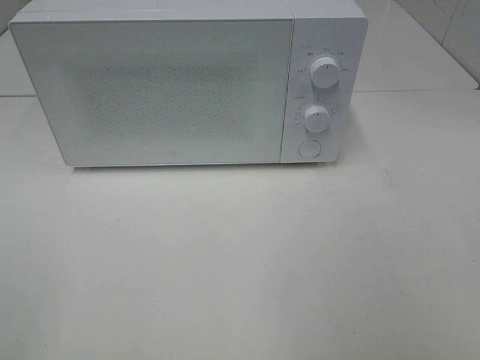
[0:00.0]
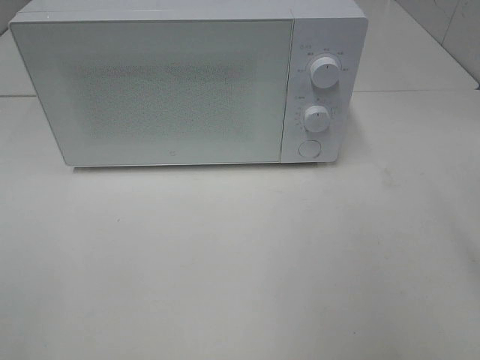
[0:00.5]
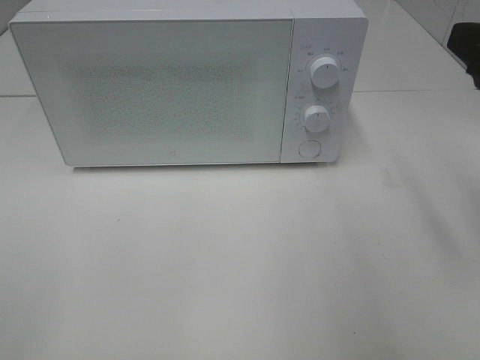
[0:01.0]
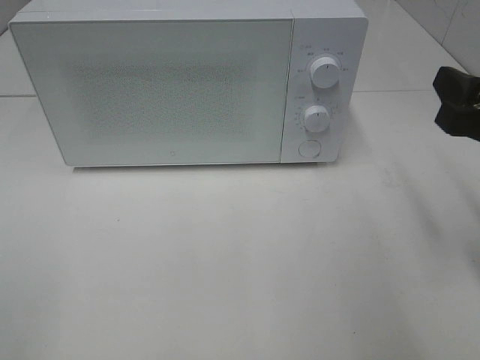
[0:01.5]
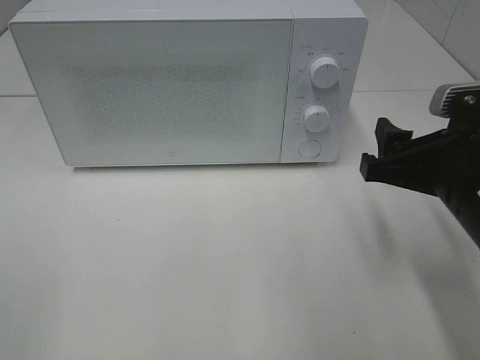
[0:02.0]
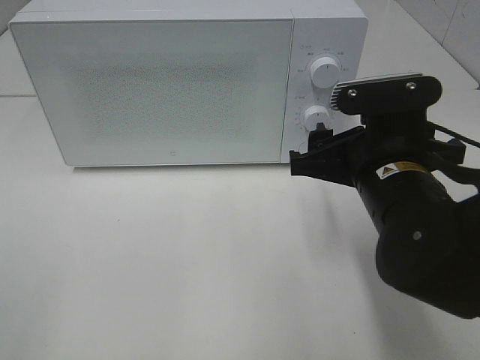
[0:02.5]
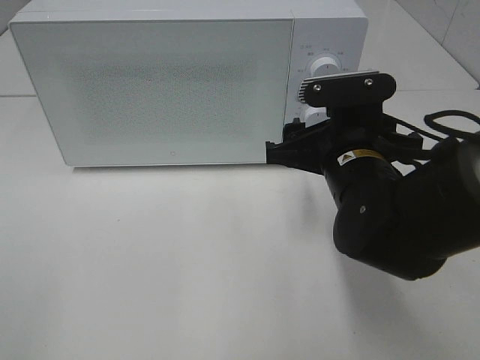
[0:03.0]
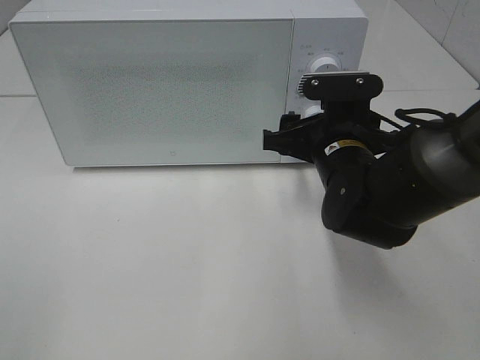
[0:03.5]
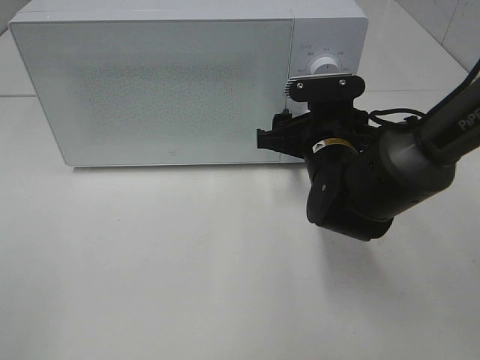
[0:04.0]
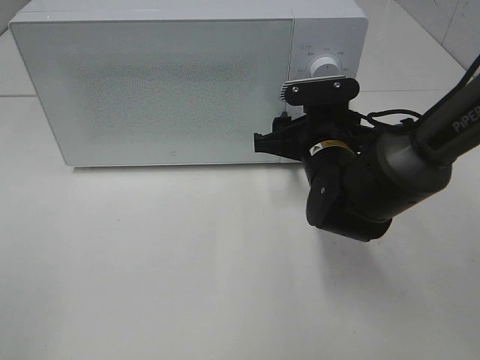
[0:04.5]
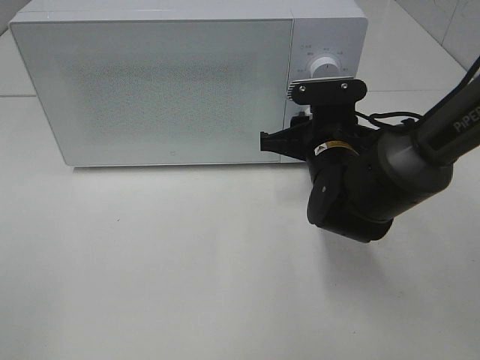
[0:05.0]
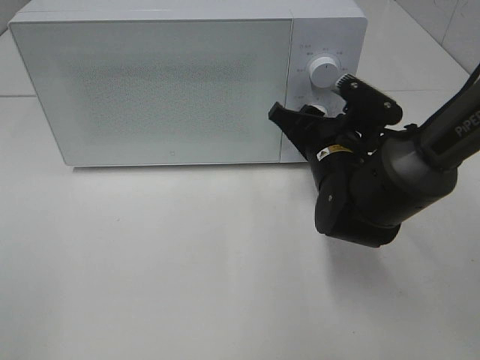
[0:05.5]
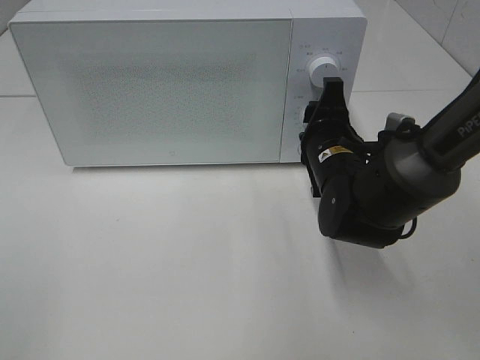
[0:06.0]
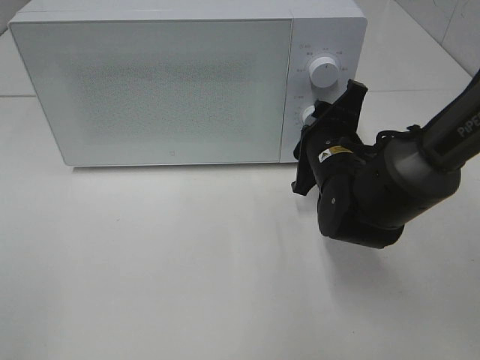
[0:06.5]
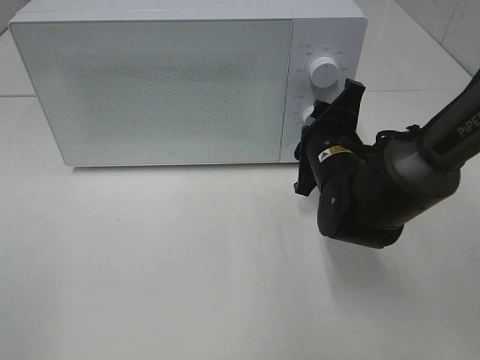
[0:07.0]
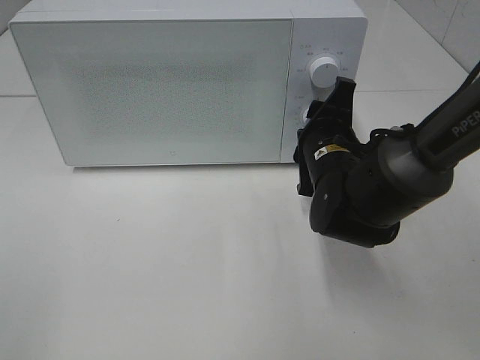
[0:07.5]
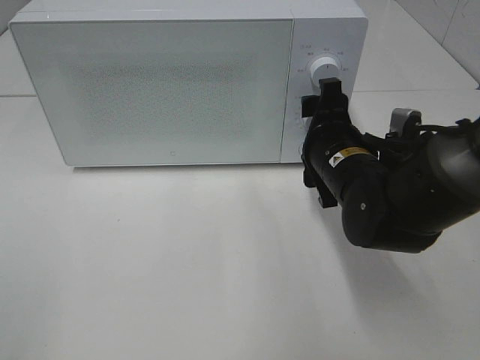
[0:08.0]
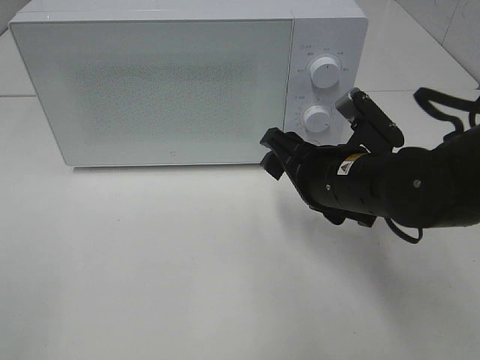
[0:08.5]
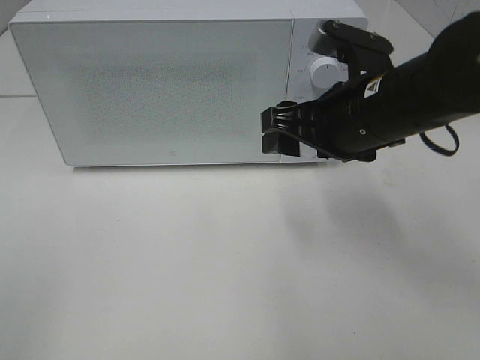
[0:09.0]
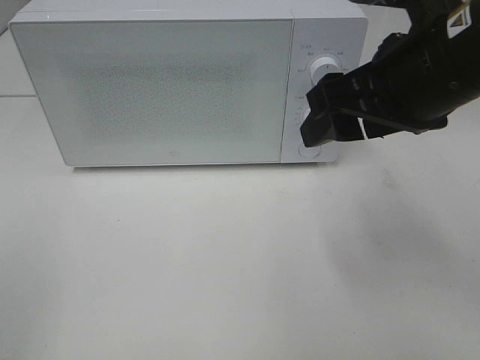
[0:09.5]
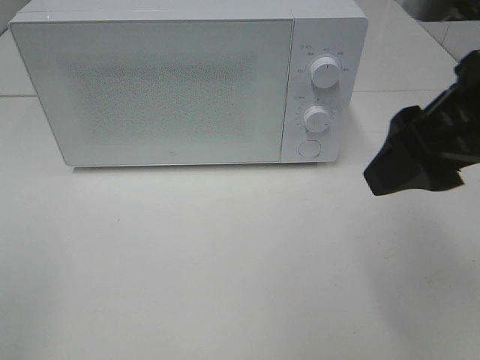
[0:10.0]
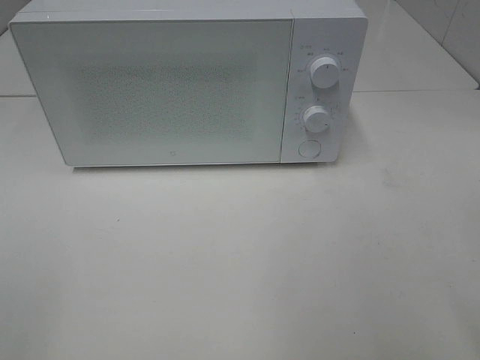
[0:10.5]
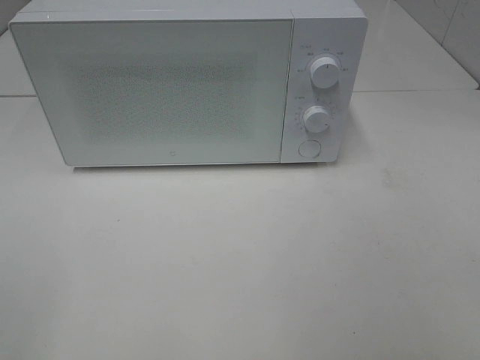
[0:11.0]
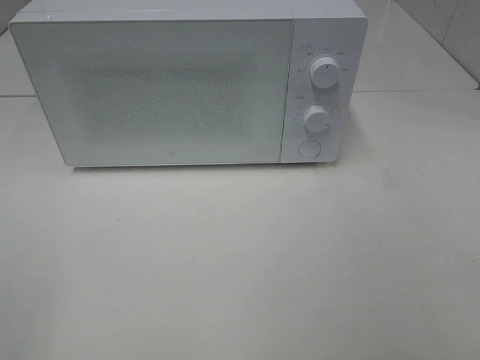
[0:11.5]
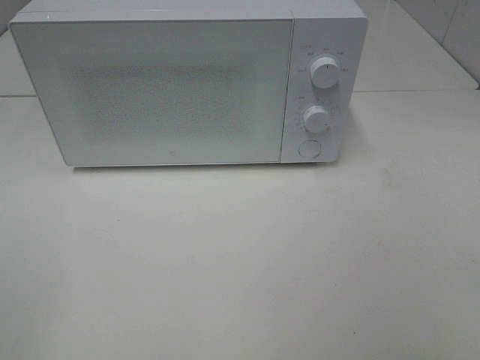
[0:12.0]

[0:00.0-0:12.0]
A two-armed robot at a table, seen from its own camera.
Task of the whole recording: Heat the burger.
Step, 0:00.0 to 0:07.5: Right hand: twist timer button.
0:00.0 to 0:02.0: The right gripper shifts approximately 20 cm downward, forward and to the left.
0:02.0 to 0:04.0: The right gripper shifts roughly 15 cm forward, to the left and downward.
0:04.0 to 0:06.0: The right gripper closes.
0:06.0 to 0:08.0: The right gripper opens up.
0:08.0 to 0:10.0: The right gripper travels upward and backward by roughly 25 cm.
0:10.0 to 0:12.0: The right gripper travels backward and to the right by some 20 cm.

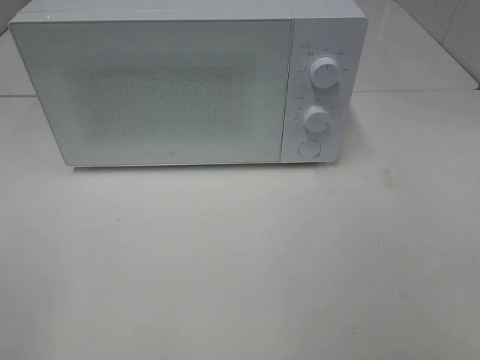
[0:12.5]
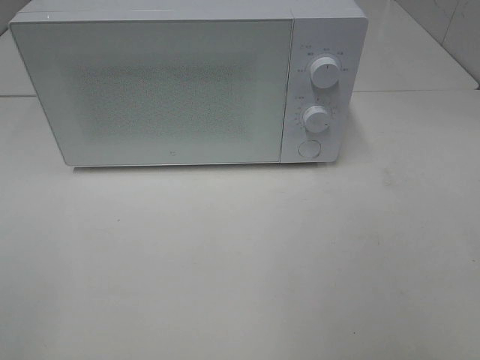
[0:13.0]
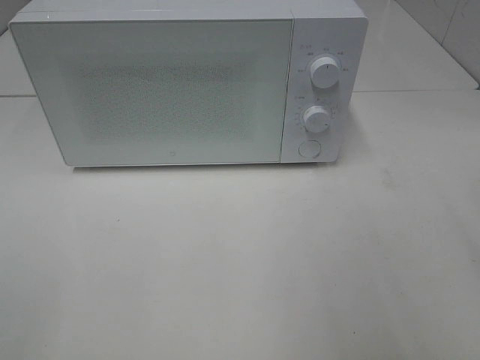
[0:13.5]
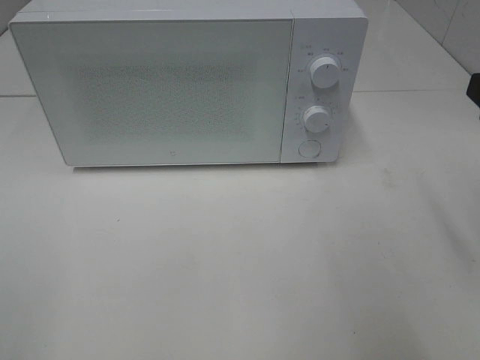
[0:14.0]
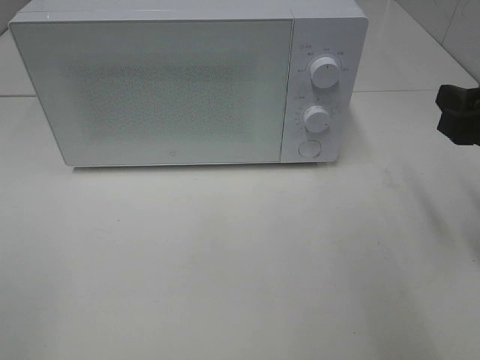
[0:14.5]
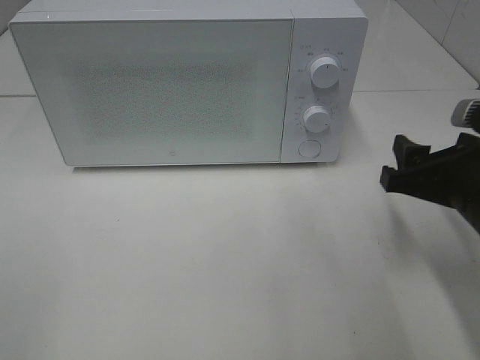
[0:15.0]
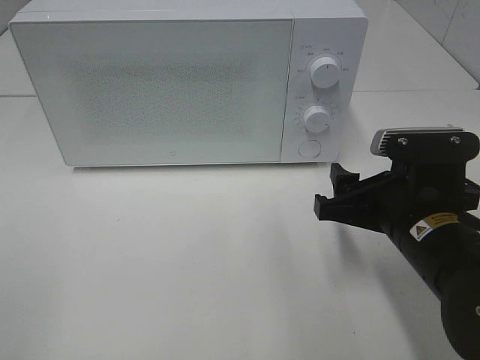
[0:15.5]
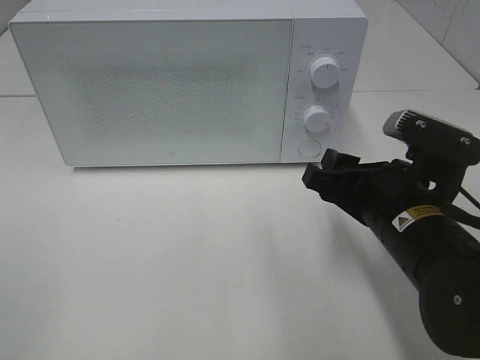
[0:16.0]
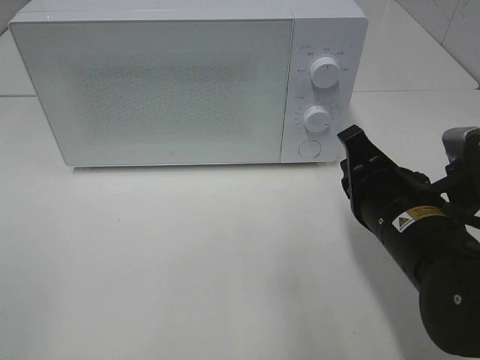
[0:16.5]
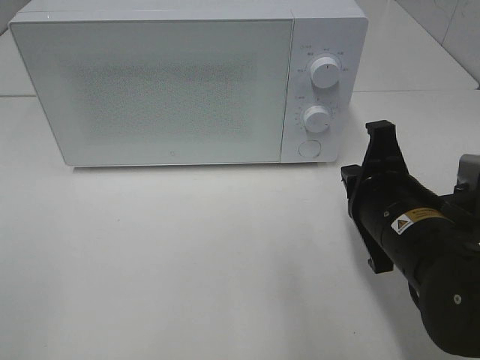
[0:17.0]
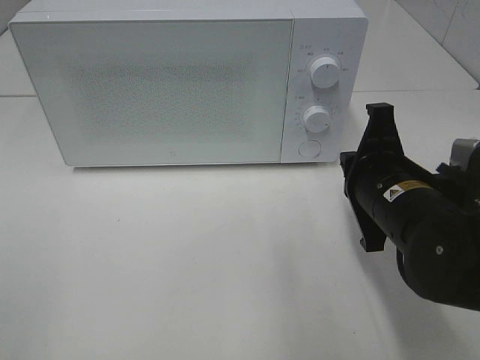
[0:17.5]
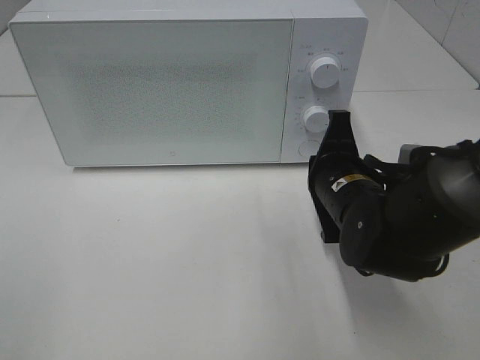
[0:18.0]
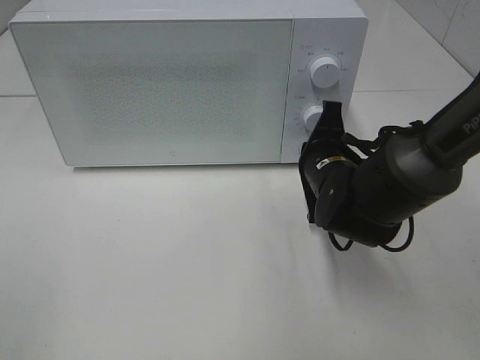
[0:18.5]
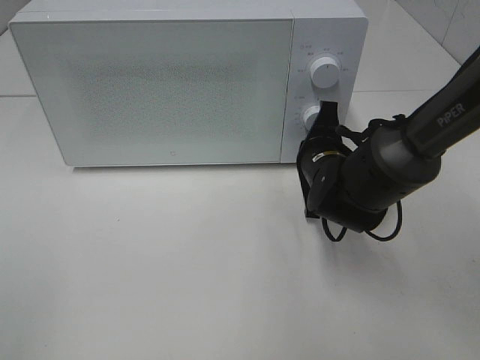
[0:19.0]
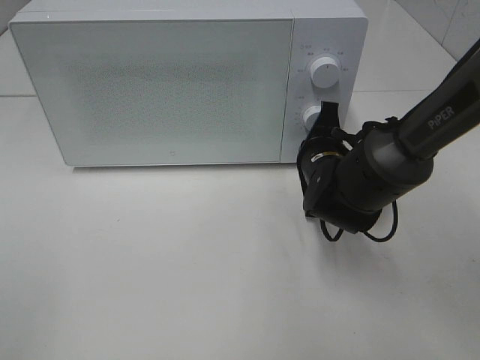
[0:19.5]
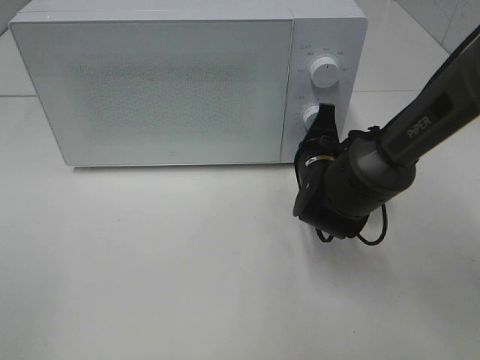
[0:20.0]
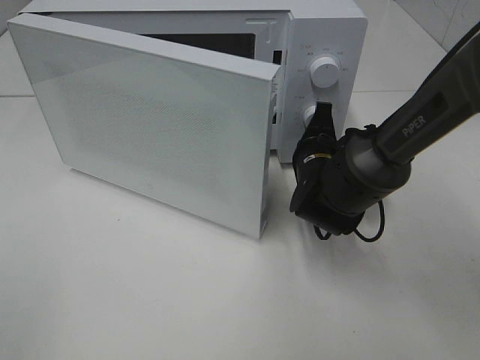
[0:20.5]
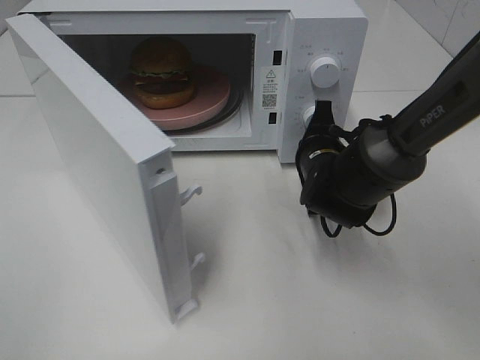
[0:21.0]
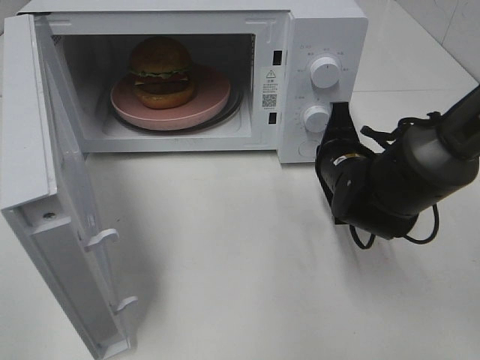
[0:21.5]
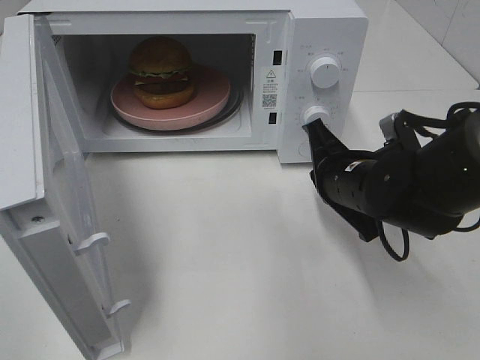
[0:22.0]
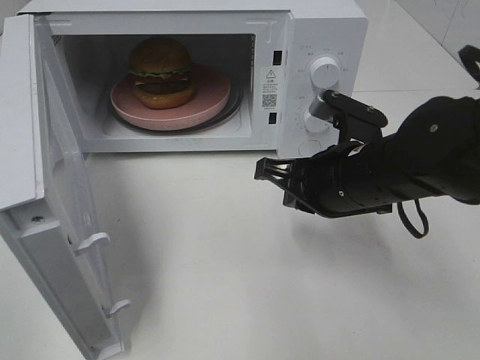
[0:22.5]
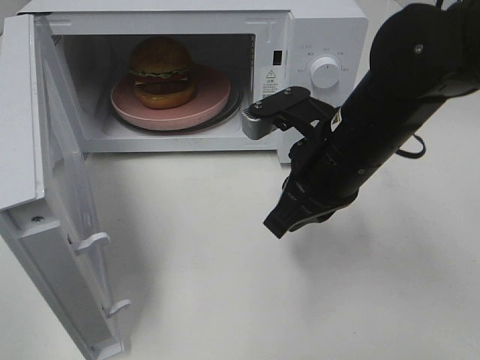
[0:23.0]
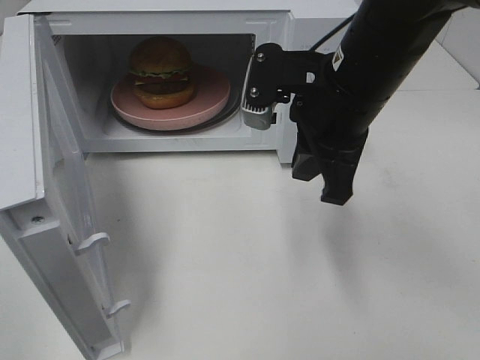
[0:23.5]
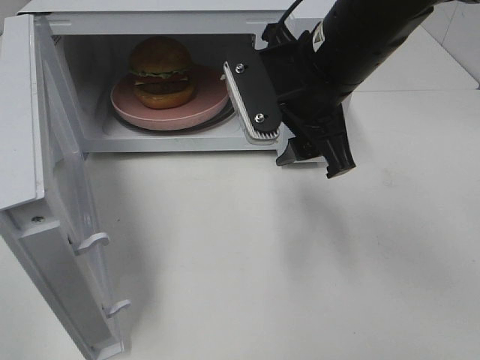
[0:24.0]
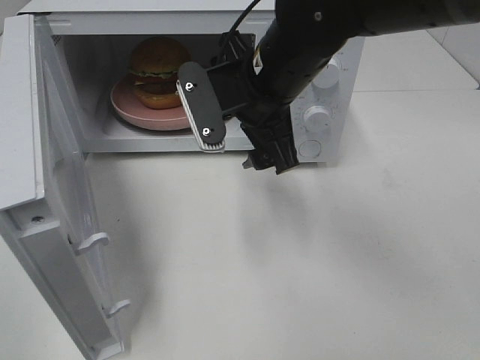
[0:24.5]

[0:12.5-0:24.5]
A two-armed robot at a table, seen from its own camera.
Task of the whole recording: Heat the burger.
Step, 0:12.5 to 0:21.0: Right hand: press the switch.
0:12.5 to 0:14.5: The right gripper heads forward and downward, covering some 25 cm.
0:14.5 to 0:16.5: The right gripper travels to the left and downward by some 15 cm, and closes.
0:16.5 to 0:18.5: The right gripper heads forward, covering roughly 10 cm.
0:20.5 to 0:22.5: The right gripper goes some 10 cm backward and upward.
0:22.5 to 0:24.5: The right gripper shifts about 15 cm to the left, upward and forward, and opens its fingers.

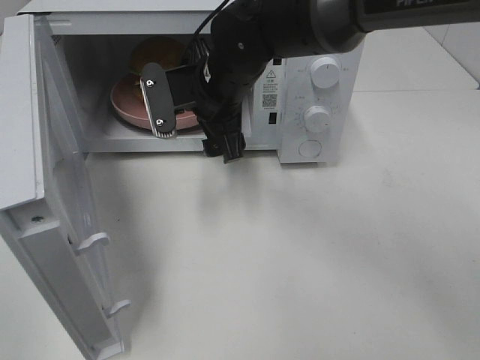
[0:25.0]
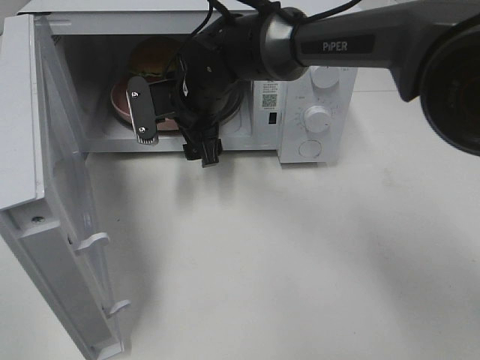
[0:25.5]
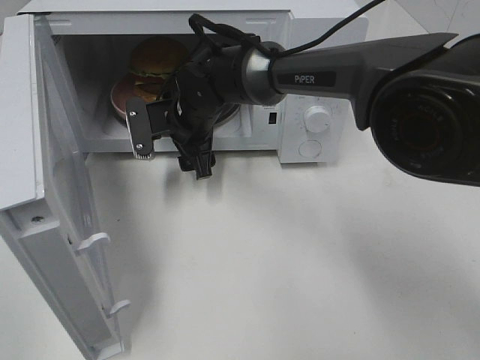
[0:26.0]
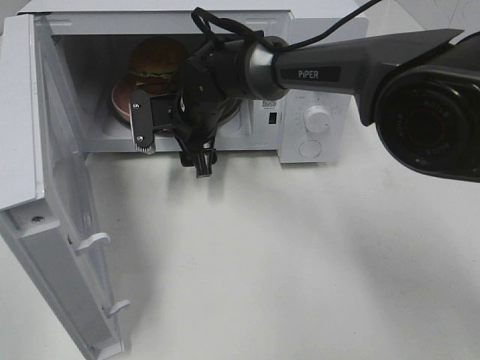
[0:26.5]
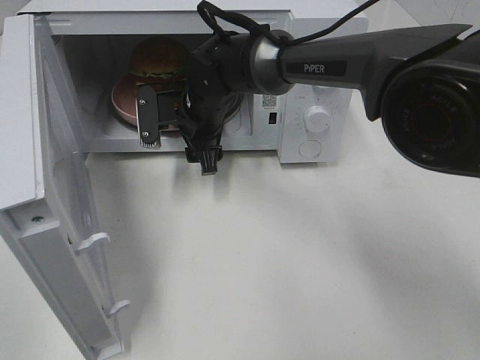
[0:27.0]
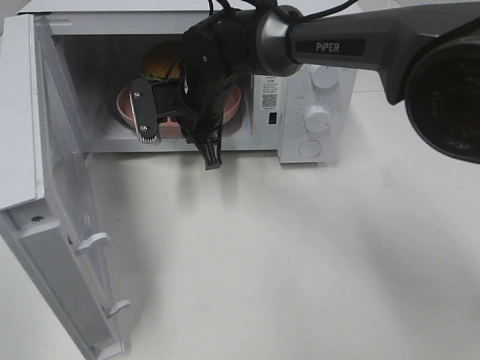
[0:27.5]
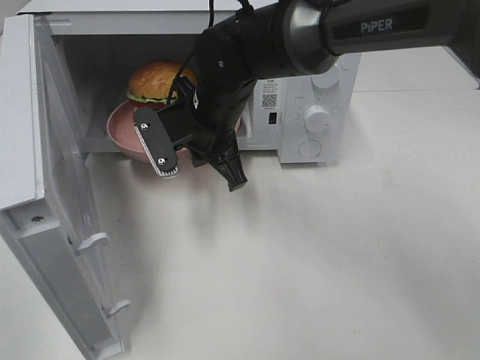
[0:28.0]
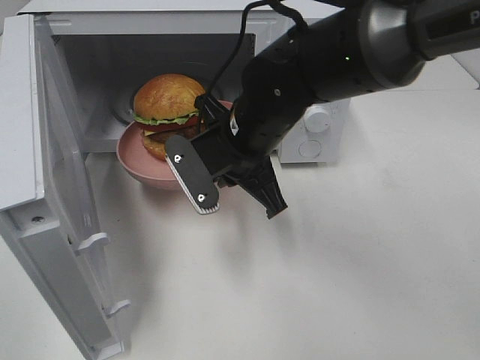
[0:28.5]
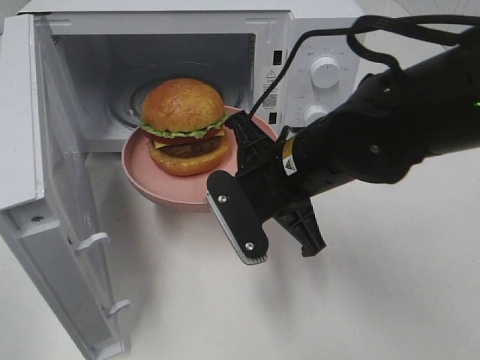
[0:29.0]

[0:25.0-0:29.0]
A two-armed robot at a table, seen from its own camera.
Task of the whole recording: Heat the burger.
Step, 0:25.0 to 0:27.0: Right hand: grab the plate with the hamburger.
0:25.0 to 0:27.0: The right gripper is displaced downward by roughly 5 cm.
0:27.0 to 0:29.0: The right gripper goes approximately 20 cm backward and to the right, and closes up.
